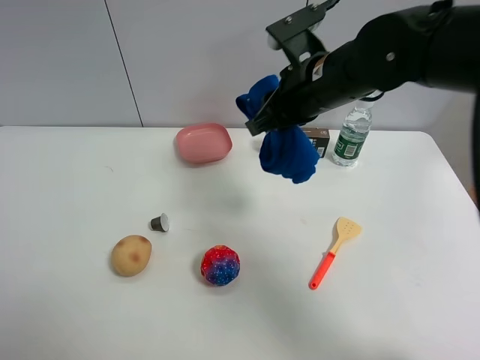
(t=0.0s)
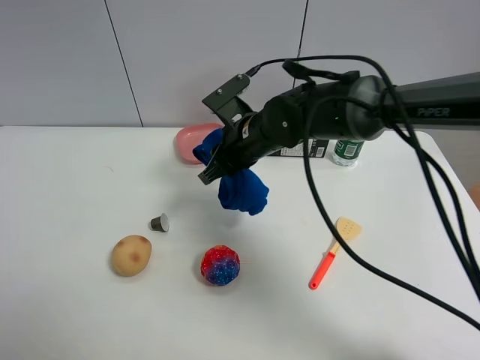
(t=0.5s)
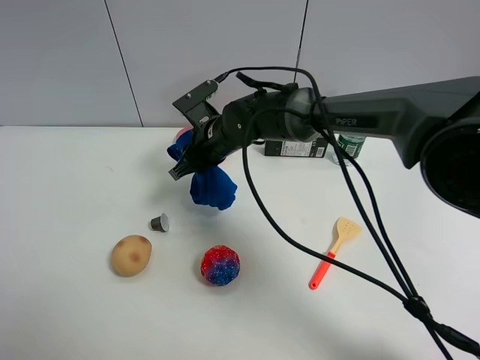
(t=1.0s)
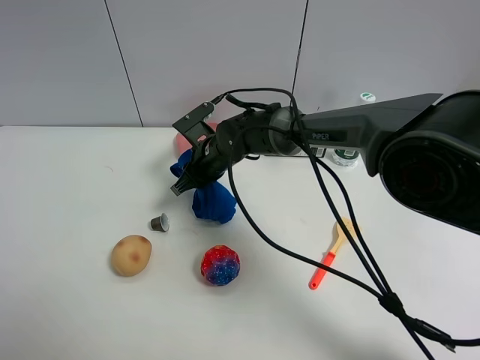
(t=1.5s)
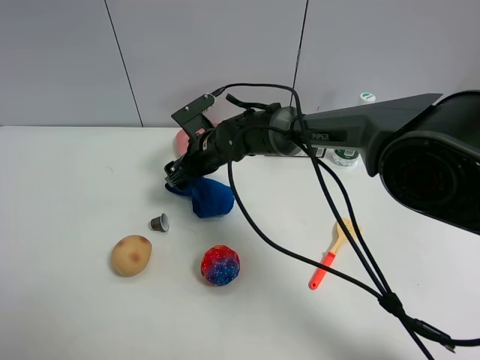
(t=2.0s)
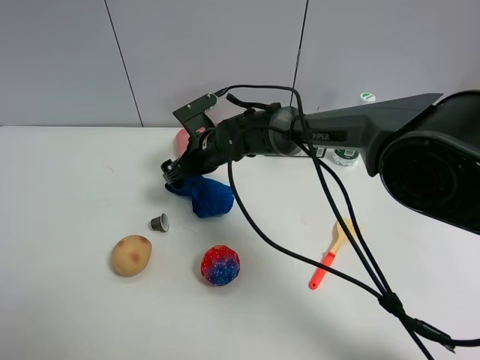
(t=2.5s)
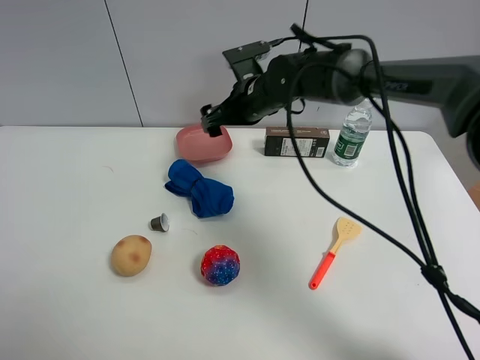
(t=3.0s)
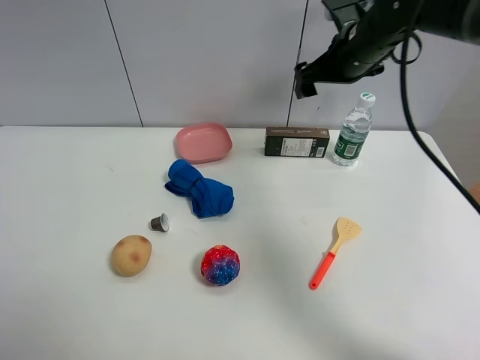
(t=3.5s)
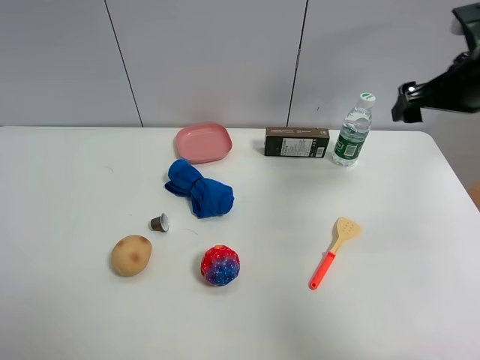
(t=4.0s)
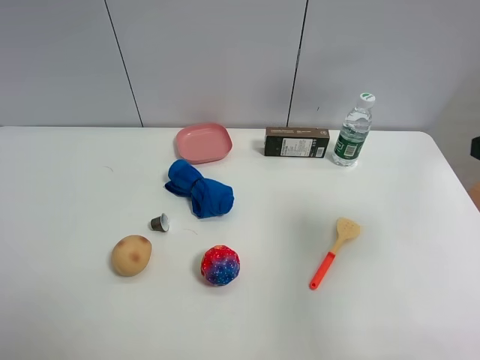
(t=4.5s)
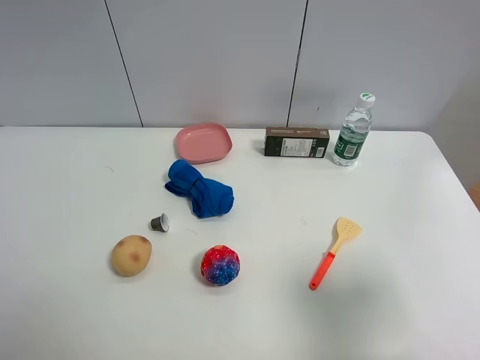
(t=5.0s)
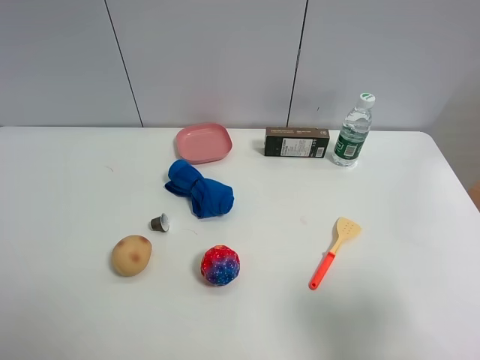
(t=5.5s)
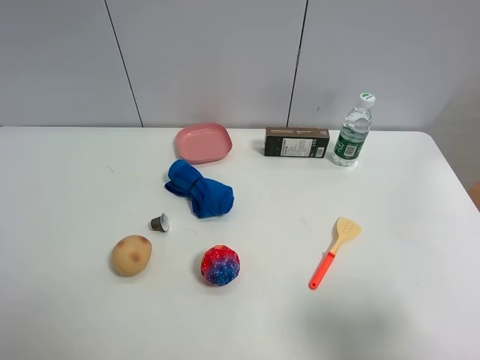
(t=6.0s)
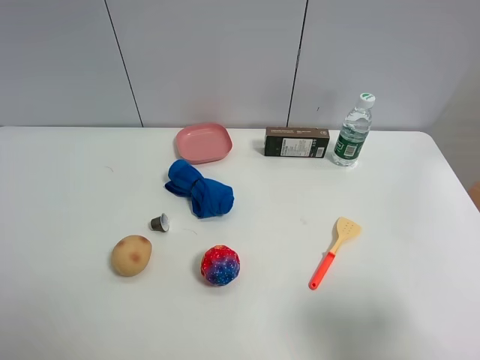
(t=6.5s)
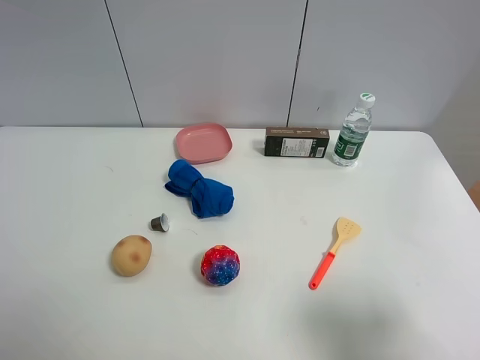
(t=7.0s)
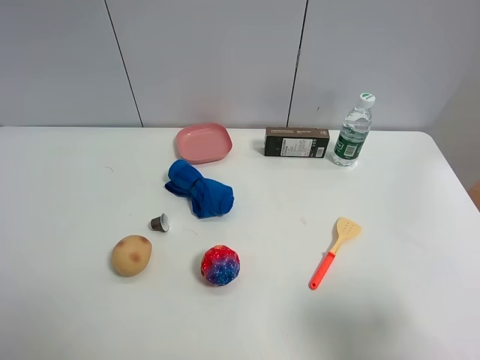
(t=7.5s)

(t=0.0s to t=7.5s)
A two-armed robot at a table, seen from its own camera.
Task of the whole recording: the gripper move the object.
Step, t=0.0s - t=2.0s: Place the blue towel on the table with the right gripper.
t=0.0s - t=2.0s: The right gripper moves downward, to the left and forward, roughly 20 cm, and opens up.
t=2.0s - t=4.0s: The right gripper moves to the right and upward, roughly 35 cm.
t=4.0s - t=5.5s: The right gripper heads backward, covering some 30 cm.

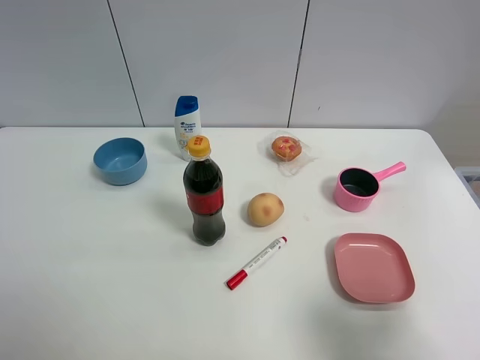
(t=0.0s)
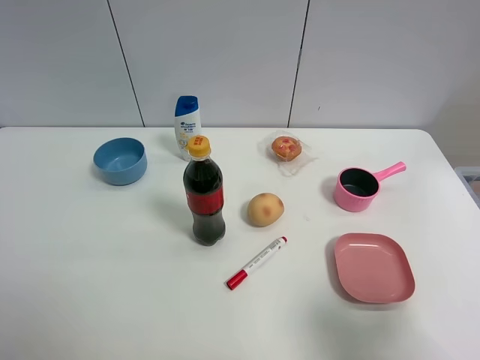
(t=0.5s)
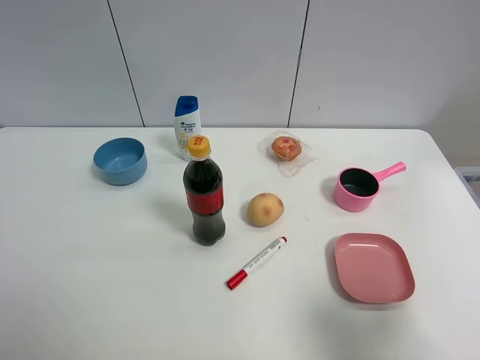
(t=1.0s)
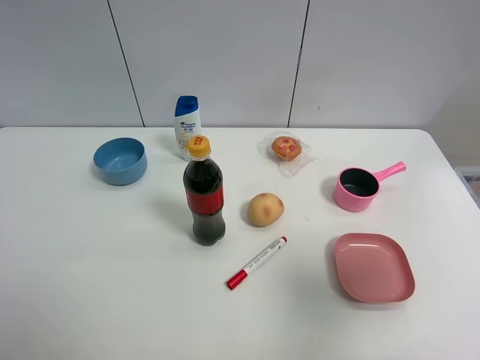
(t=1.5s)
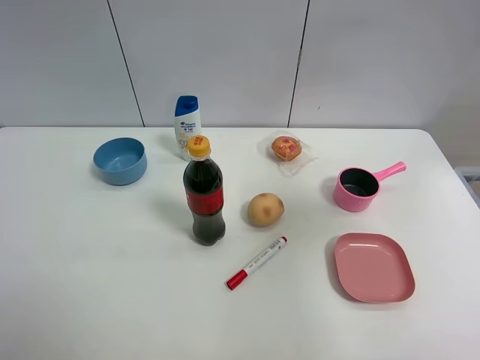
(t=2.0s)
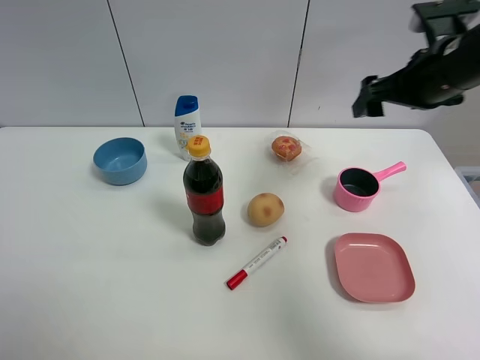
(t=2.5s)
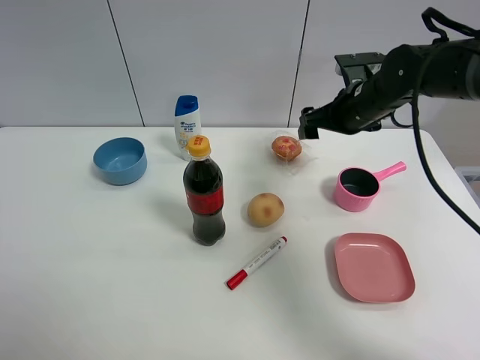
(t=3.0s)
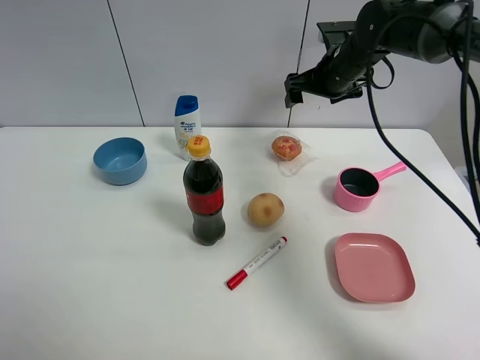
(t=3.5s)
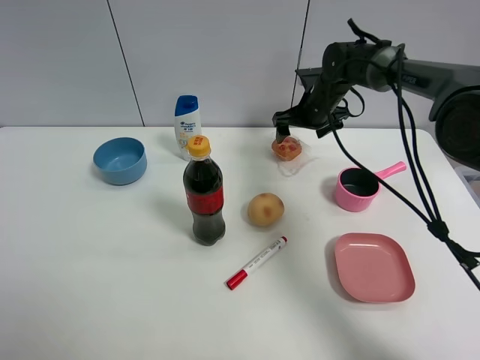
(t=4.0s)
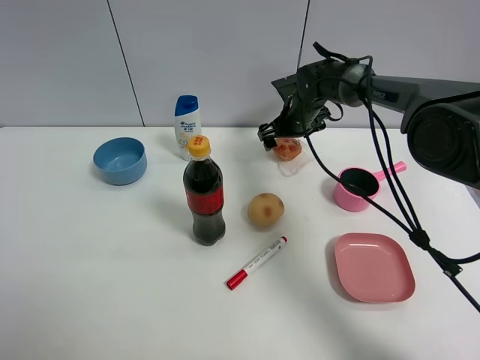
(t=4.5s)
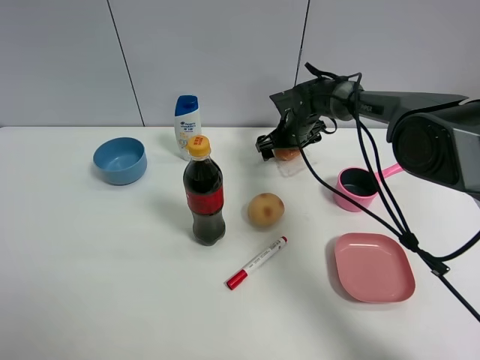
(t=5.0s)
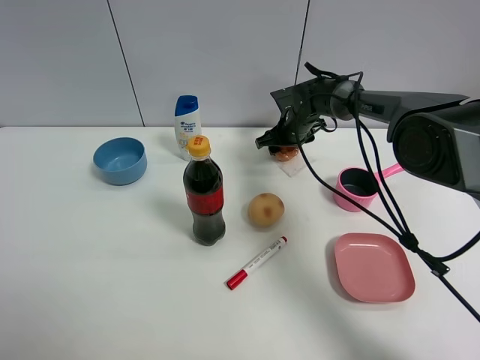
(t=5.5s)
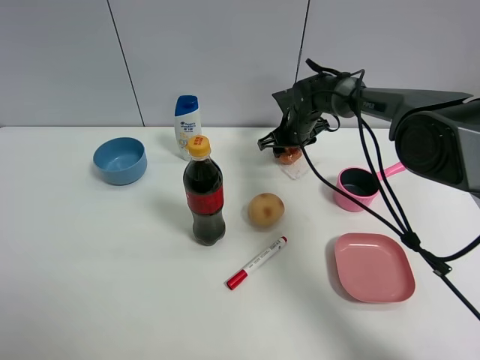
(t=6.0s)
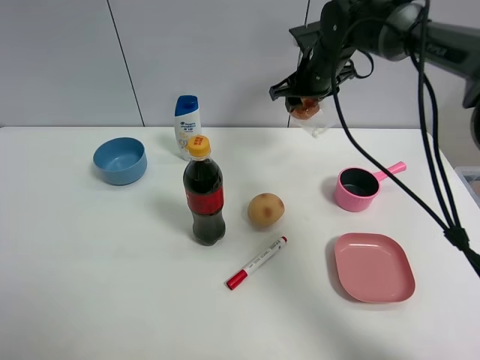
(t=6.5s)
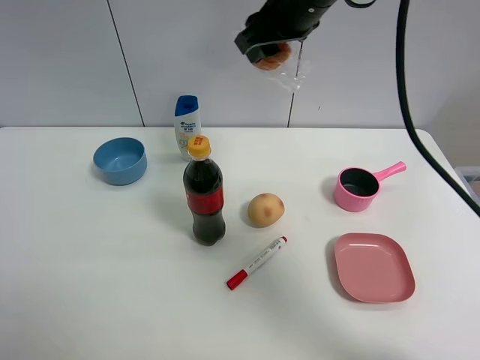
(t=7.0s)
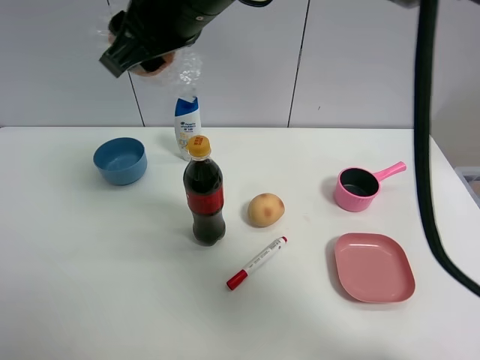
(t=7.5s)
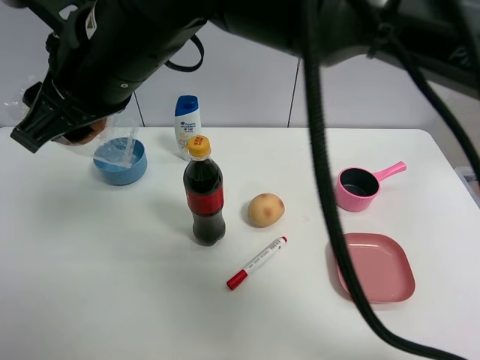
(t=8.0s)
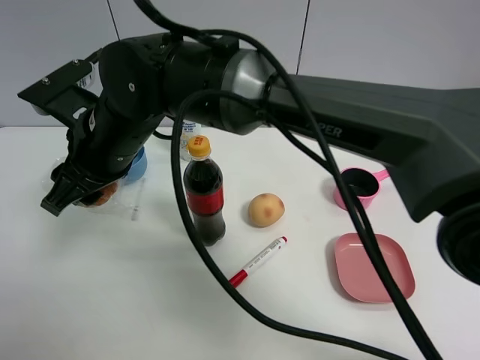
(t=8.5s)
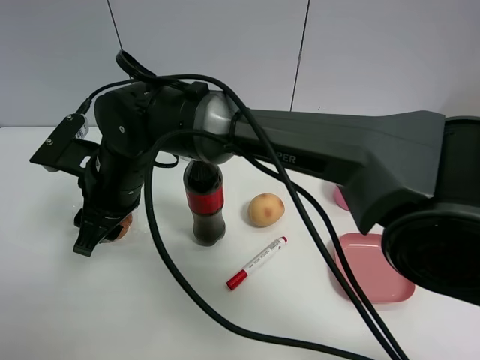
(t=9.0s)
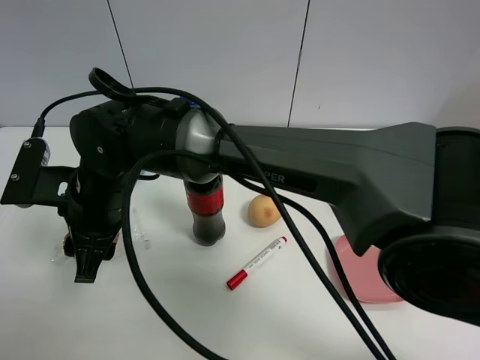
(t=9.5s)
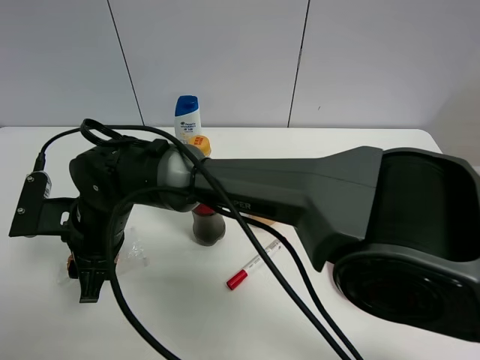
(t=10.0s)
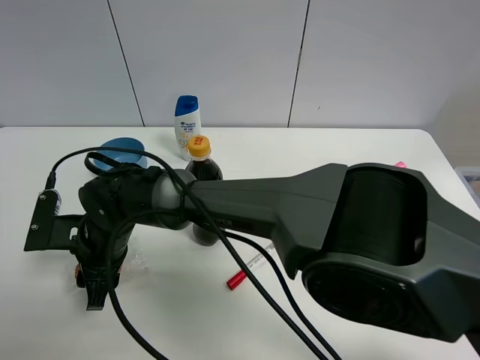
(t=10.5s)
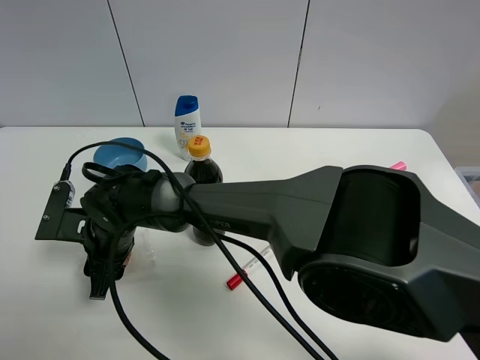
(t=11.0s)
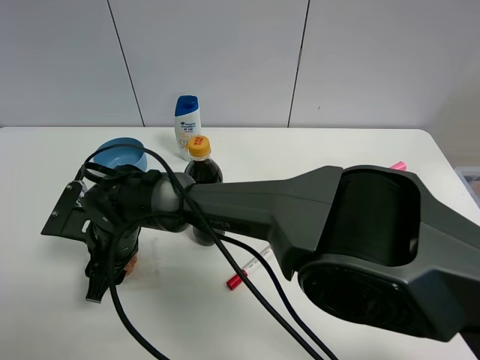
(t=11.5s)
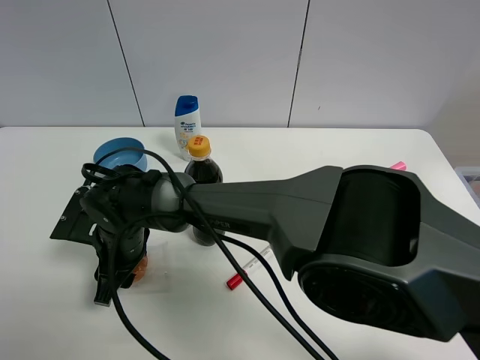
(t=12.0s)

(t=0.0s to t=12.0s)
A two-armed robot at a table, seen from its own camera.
Task of the whole recording: the gripper move the object.
Step, t=0.0s - t=5.5s: Grasp the egg tart with the right gripper.
t=0.0s - t=2.0s: The right gripper goes roughly 20 cm forward and upward.
t=2.0s - t=4.0s: The right gripper moves forward, downward and to the left, about 40 cm.
t=4.0s - t=6.0s: The right gripper moves approximately 5 cm, and closes.
t=6.0s - t=8.0s: The right gripper travels backward, upward and to the left by some 40 cm.
t=8.0s - t=10.0s: The right gripper is displaced downward by about 20 cm.
t=10.0s - t=12.0s: The right gripper changes place by approximately 5 cm.

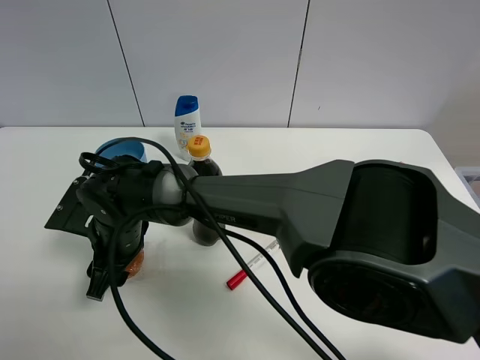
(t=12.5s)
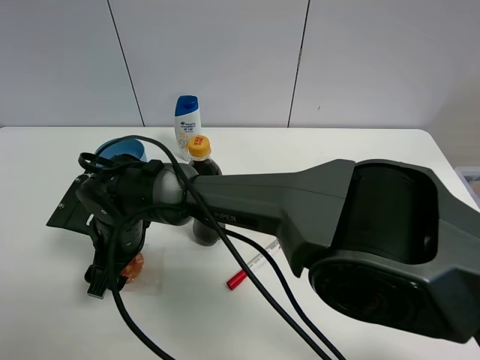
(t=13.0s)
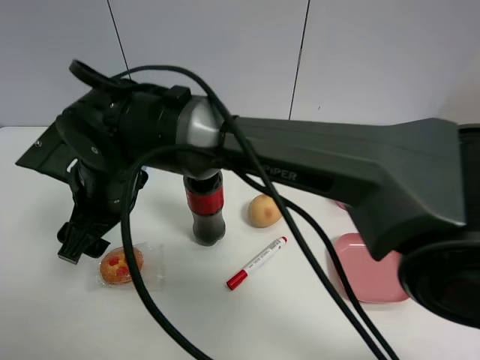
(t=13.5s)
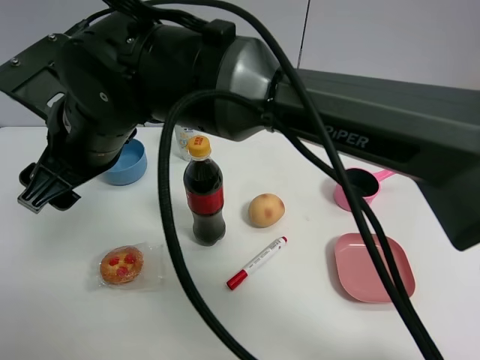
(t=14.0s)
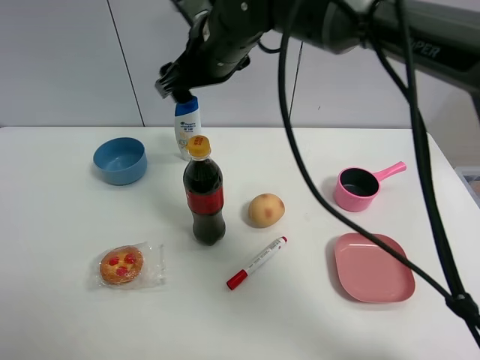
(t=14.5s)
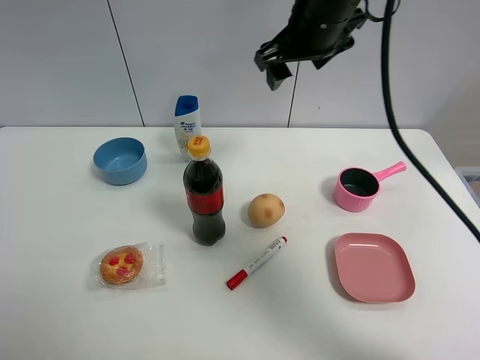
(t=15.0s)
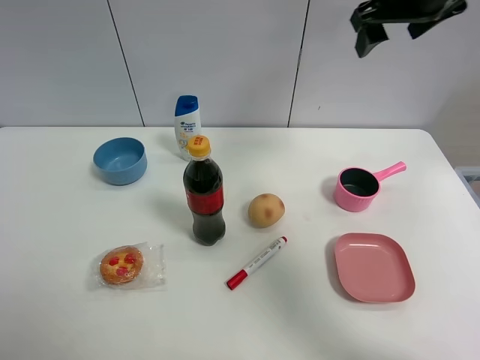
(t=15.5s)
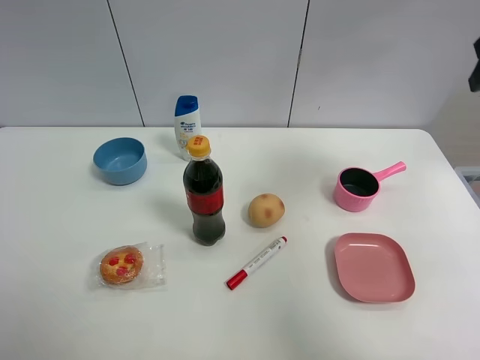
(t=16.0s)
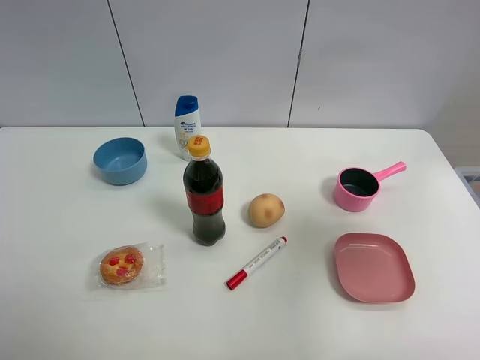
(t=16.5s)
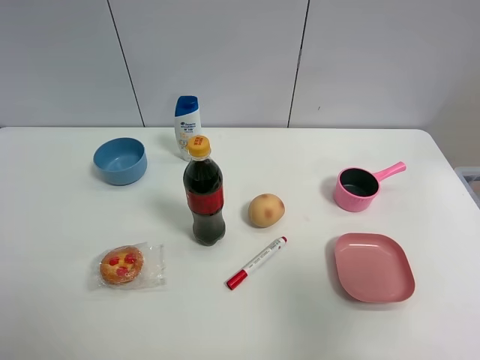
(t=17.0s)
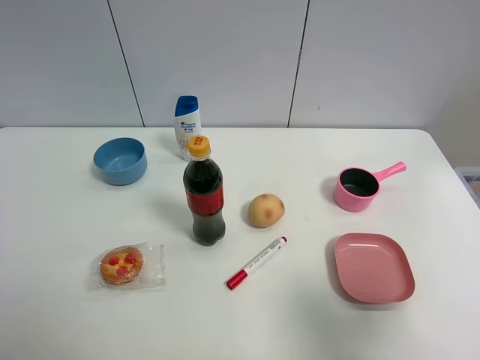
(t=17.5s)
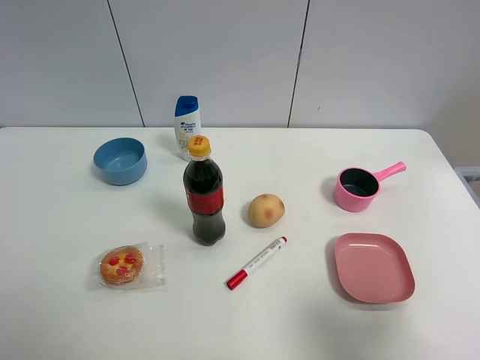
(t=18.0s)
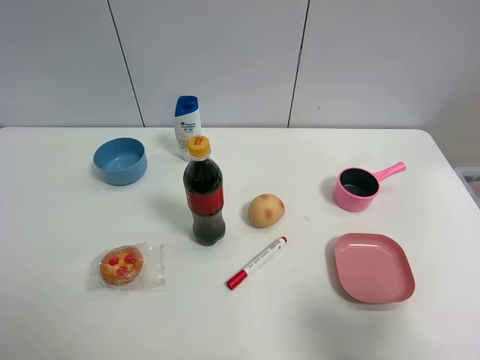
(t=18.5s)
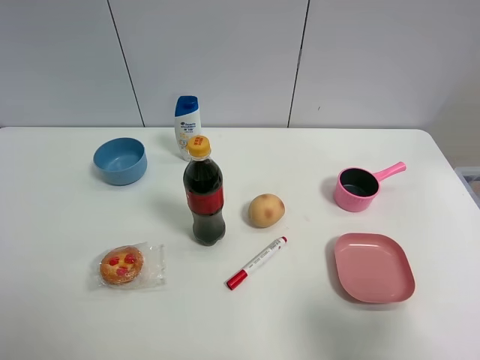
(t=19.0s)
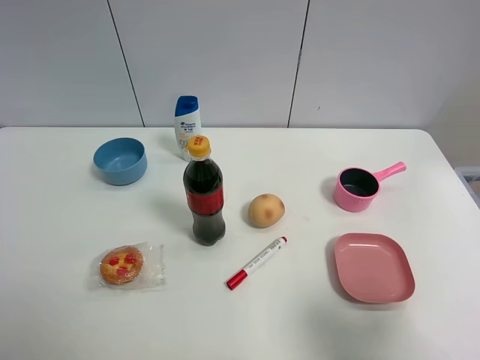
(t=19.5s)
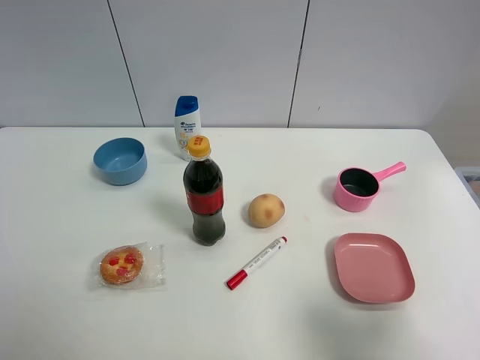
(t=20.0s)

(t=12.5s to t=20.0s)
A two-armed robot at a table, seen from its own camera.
Task of the whole recording: the gripper move the object.
t=12.5s - t=14.5s: The right gripper goes some 30 cm upward, to the right and forward.
t=14.5s - t=16.5s: The right gripper heads to the right and backward, covering approximately 40 cm.
t=16.5s - t=18.0s: The right gripper shifts roughly 15 cm backward and downward.
t=18.0s - t=20.0s: The two grippers keep their place.
